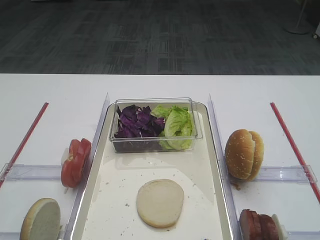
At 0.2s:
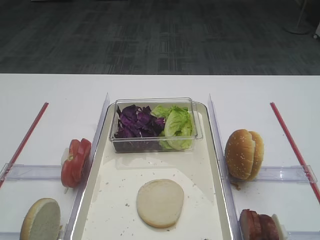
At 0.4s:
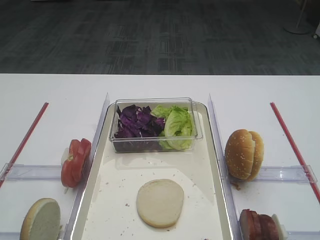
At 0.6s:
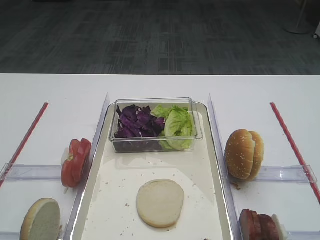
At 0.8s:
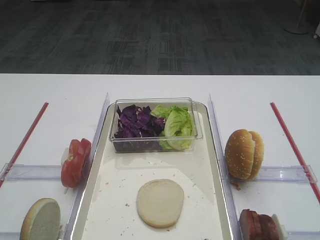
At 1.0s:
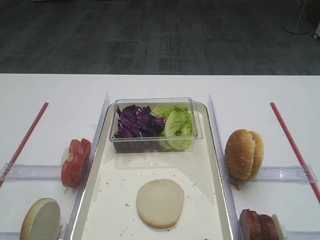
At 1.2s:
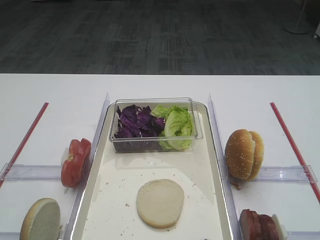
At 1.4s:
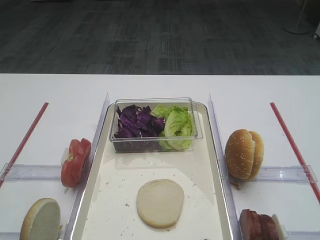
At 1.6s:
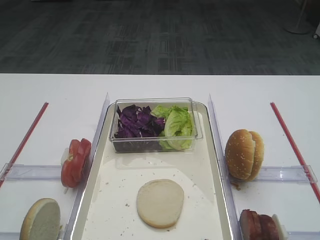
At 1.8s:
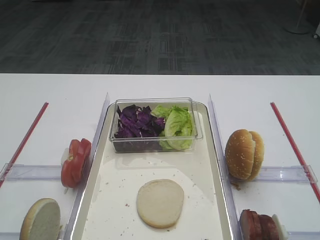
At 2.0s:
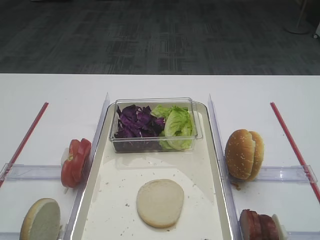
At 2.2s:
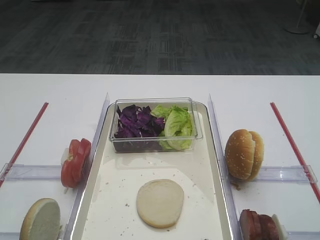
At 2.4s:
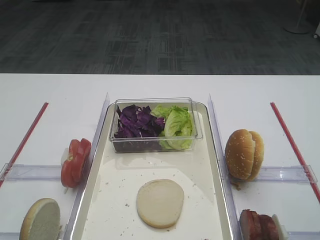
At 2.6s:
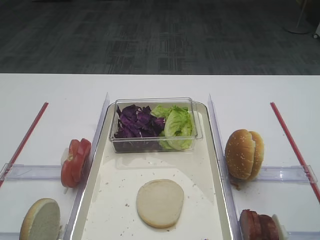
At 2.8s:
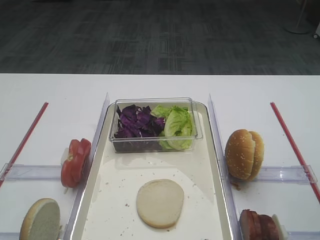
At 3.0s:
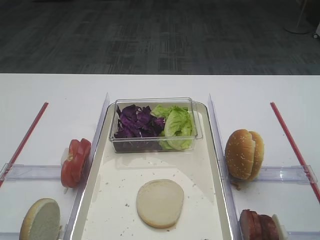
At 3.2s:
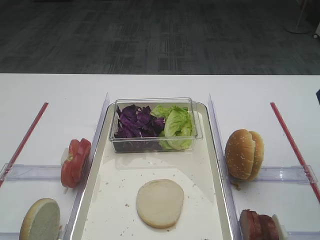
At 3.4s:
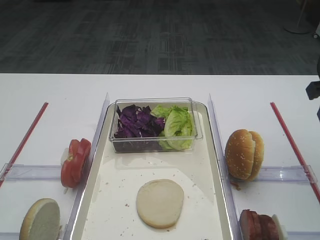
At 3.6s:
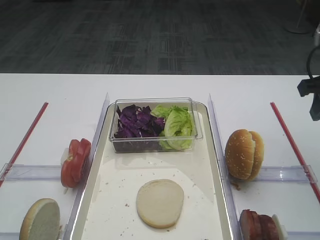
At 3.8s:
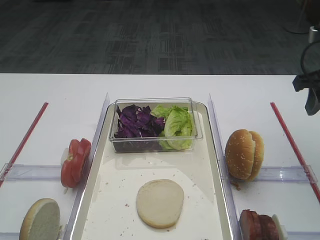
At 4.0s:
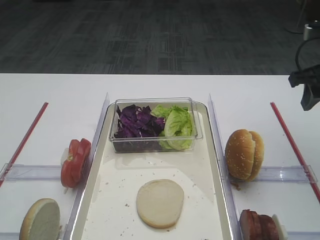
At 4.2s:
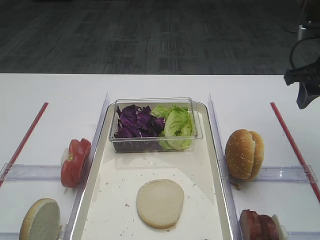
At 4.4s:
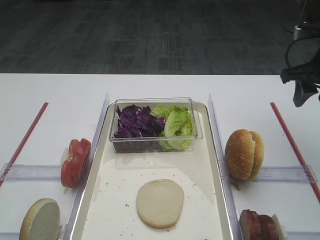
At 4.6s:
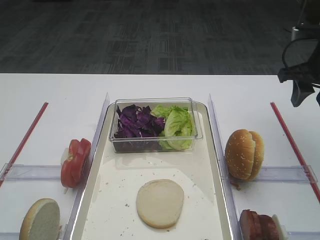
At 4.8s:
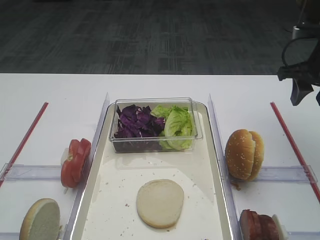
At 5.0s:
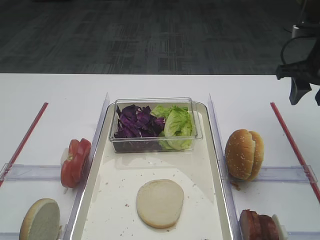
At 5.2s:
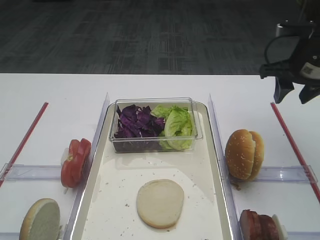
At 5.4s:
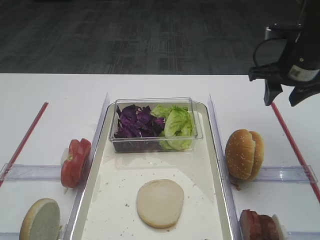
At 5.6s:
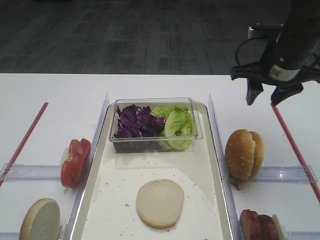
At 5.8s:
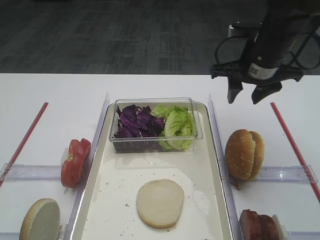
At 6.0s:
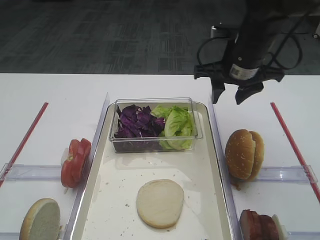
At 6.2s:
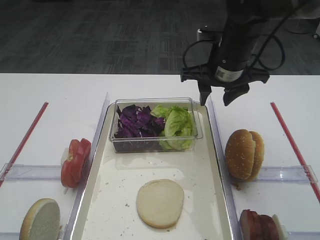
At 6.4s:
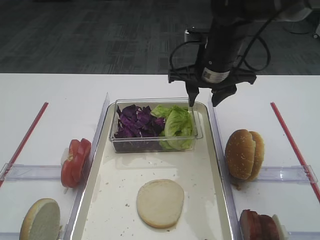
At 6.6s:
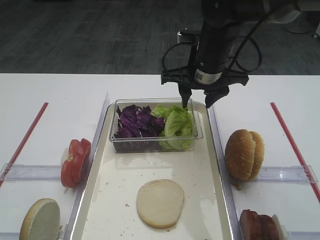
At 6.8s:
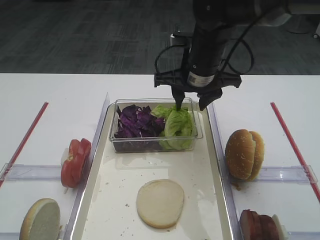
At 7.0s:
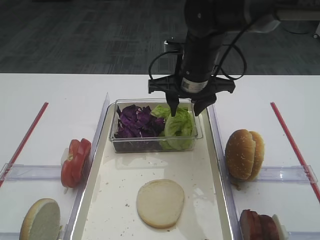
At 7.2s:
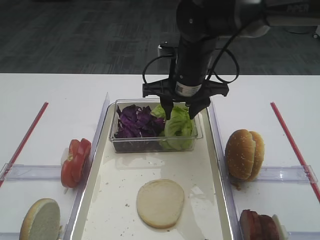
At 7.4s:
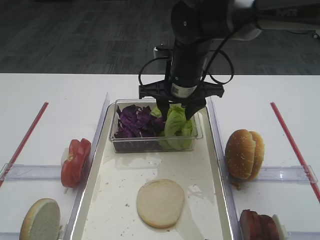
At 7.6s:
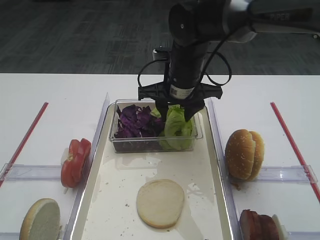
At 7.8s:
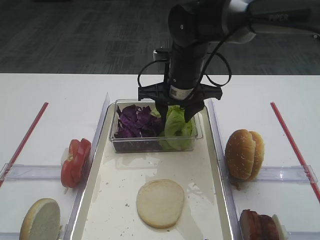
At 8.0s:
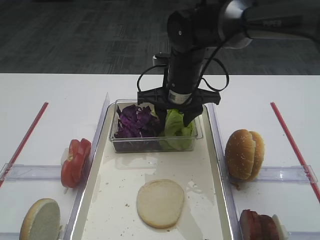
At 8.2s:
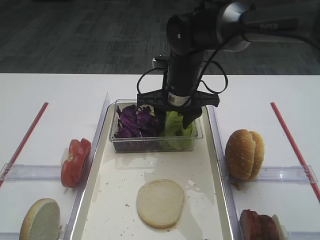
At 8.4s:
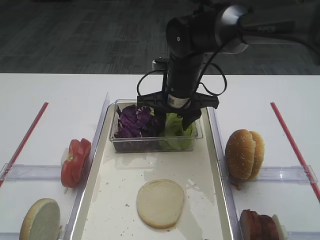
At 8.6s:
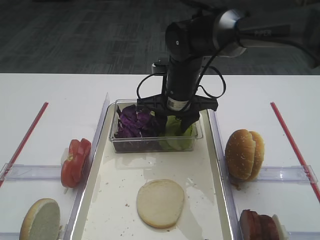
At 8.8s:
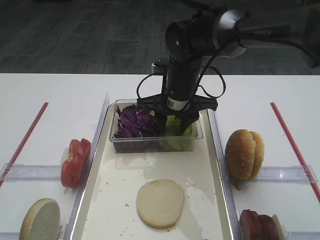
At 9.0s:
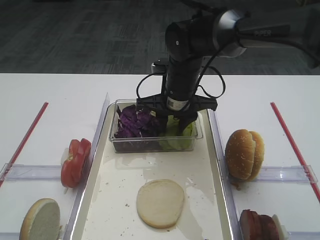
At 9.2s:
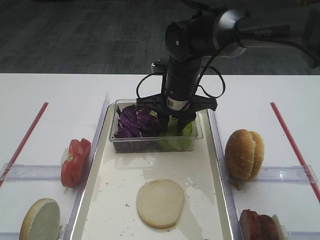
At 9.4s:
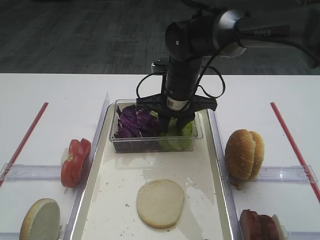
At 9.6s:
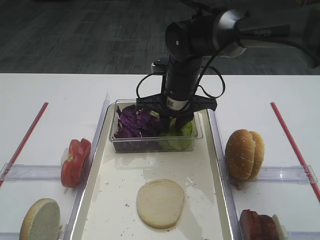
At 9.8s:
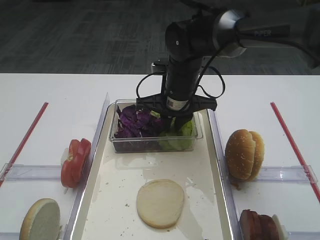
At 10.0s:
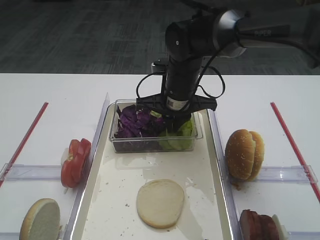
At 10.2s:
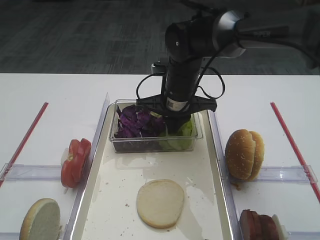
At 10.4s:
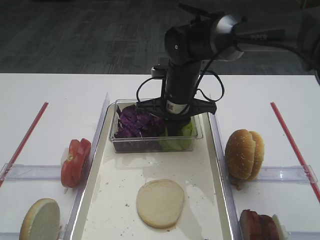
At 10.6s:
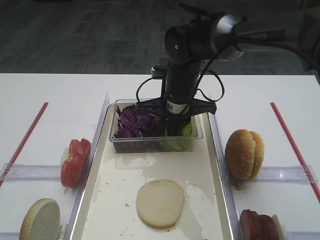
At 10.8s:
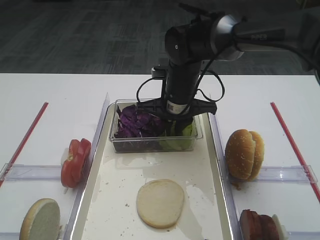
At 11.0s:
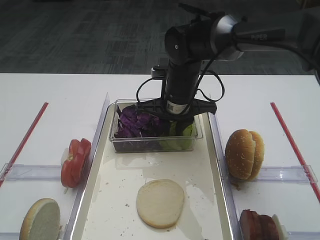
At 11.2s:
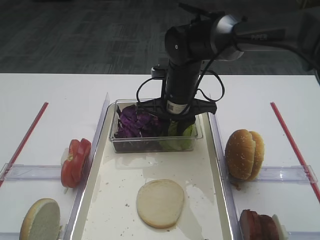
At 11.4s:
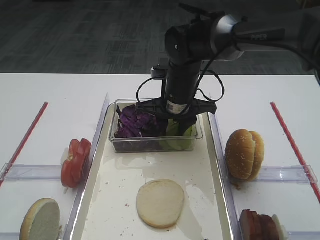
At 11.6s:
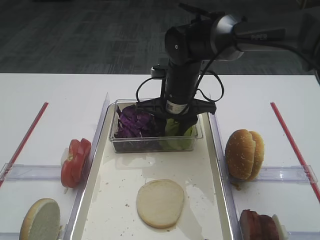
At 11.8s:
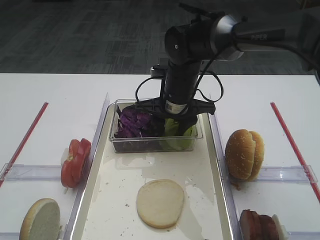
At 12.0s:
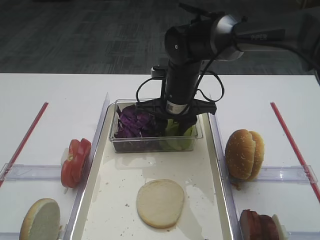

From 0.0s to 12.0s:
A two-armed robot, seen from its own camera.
From 1.6s to 3.0s: The right gripper shifts about 20 cm forward.
From 3.0s to 4.4s: The right gripper shifts roughly 15 cm forward.
From 4.4s to 6.0s: The right gripper travels to the left by roughly 15 cm.
From 6.0s to 7.6s: The right gripper shifts approximately 10 cm to the left.
From 7.6s to 9.0s: There are only small adjustments of the grippers.
From 9.0s to 10.4s: The right gripper closes.

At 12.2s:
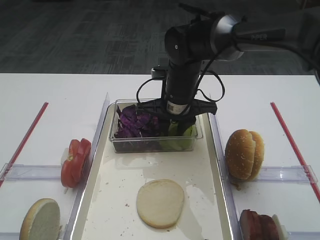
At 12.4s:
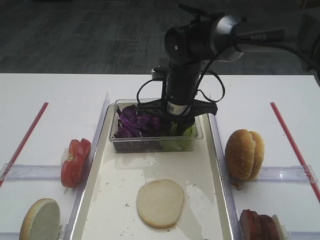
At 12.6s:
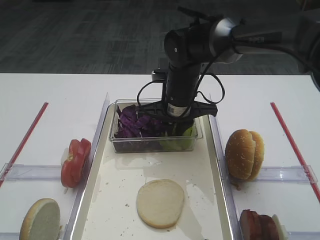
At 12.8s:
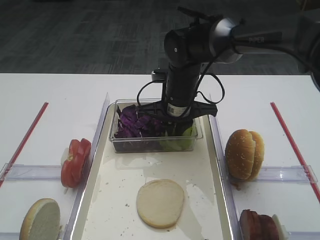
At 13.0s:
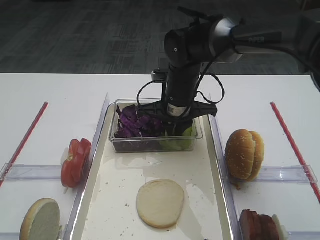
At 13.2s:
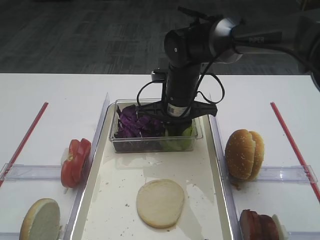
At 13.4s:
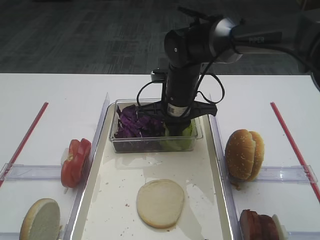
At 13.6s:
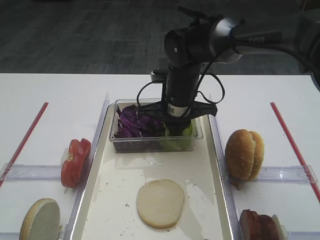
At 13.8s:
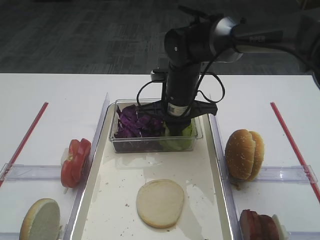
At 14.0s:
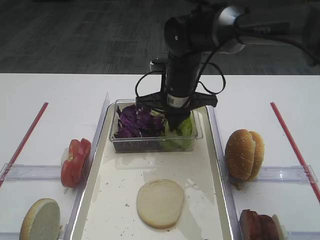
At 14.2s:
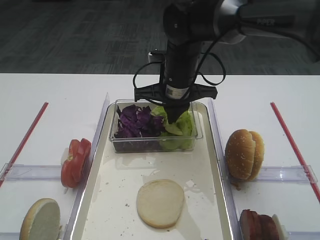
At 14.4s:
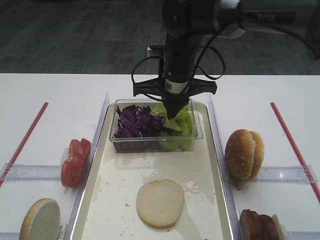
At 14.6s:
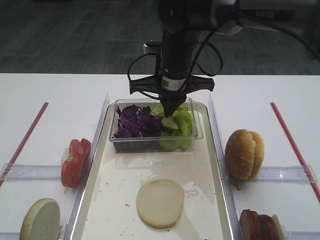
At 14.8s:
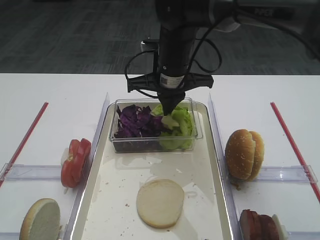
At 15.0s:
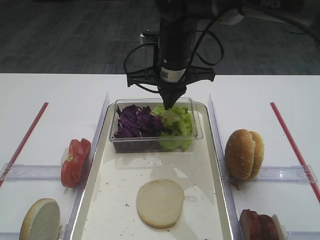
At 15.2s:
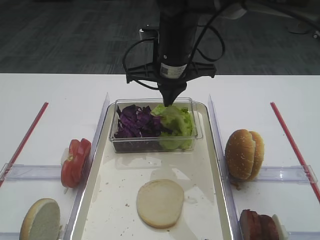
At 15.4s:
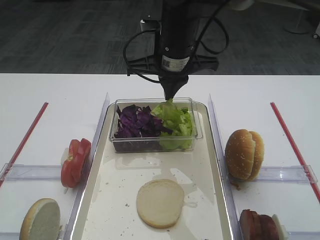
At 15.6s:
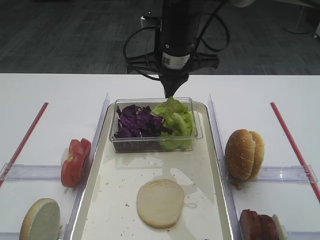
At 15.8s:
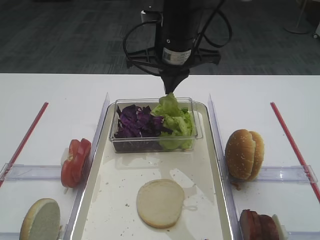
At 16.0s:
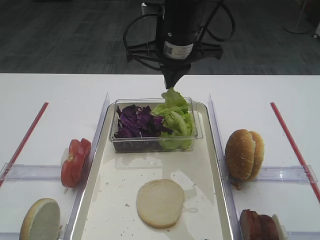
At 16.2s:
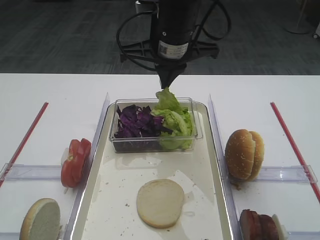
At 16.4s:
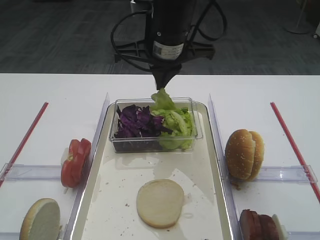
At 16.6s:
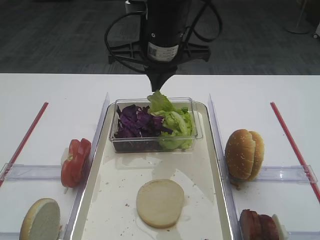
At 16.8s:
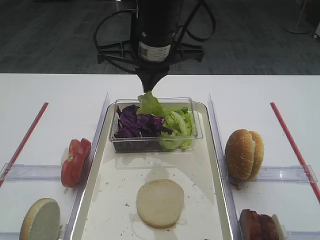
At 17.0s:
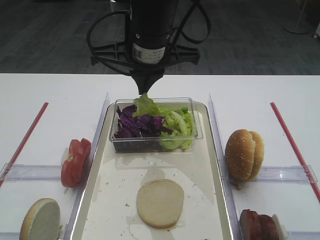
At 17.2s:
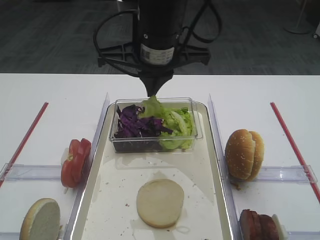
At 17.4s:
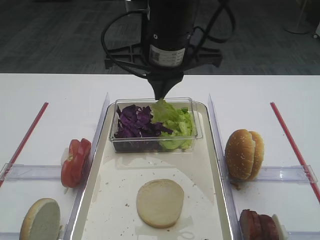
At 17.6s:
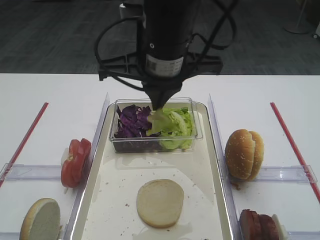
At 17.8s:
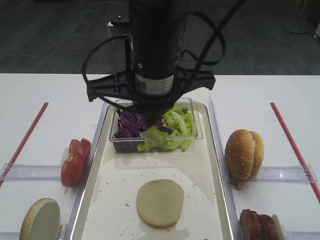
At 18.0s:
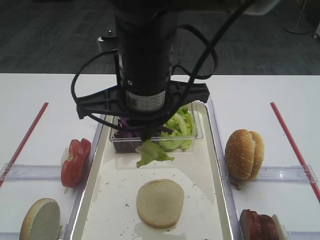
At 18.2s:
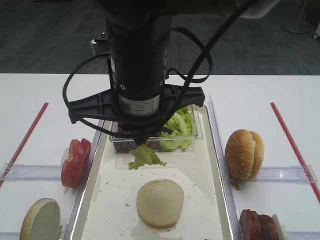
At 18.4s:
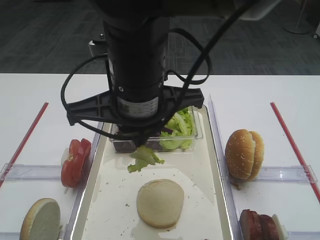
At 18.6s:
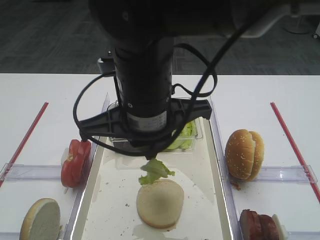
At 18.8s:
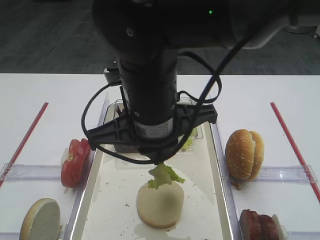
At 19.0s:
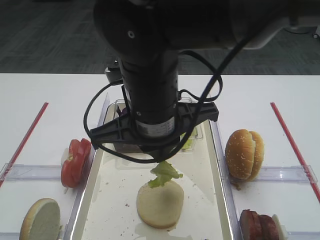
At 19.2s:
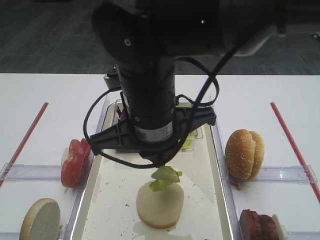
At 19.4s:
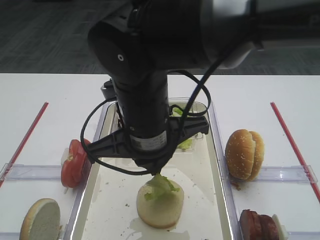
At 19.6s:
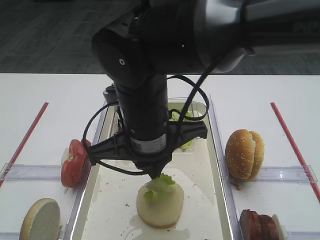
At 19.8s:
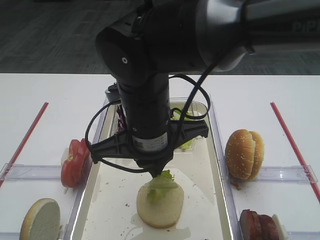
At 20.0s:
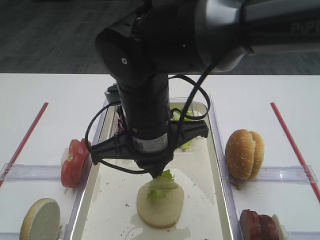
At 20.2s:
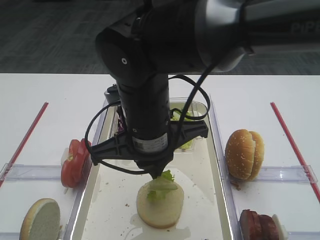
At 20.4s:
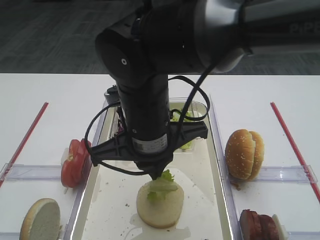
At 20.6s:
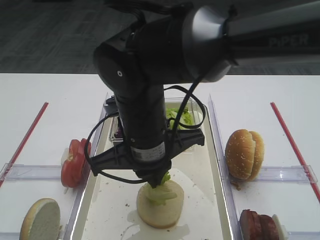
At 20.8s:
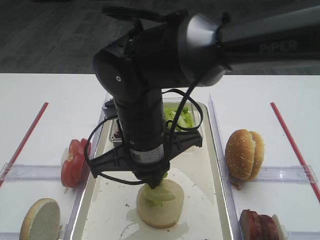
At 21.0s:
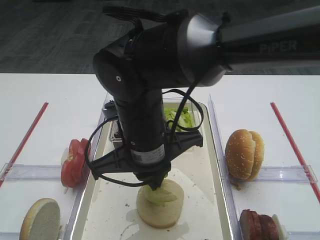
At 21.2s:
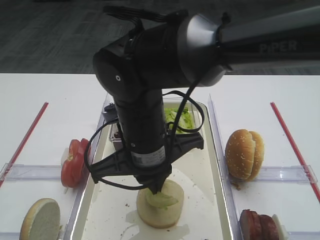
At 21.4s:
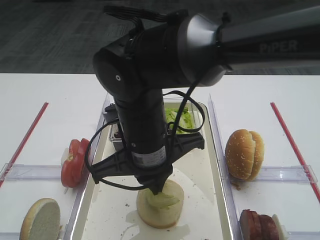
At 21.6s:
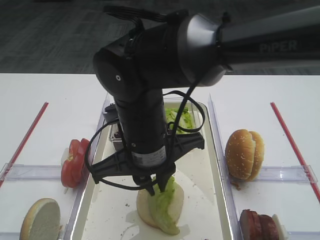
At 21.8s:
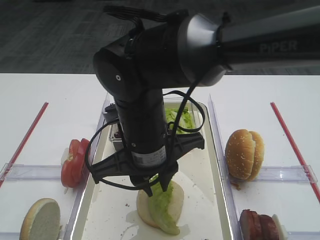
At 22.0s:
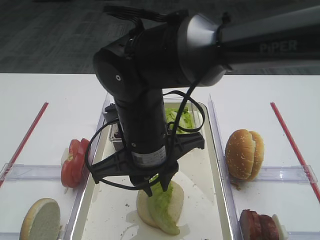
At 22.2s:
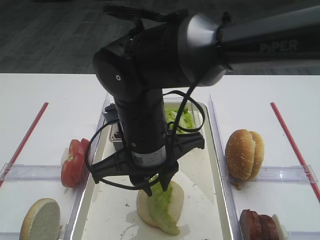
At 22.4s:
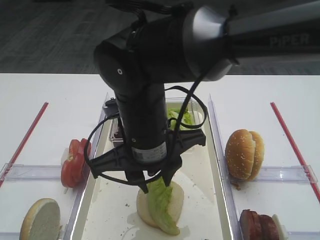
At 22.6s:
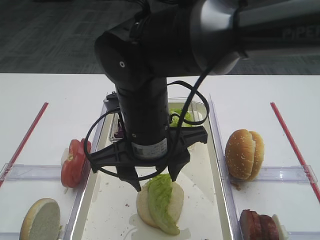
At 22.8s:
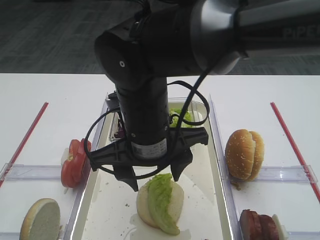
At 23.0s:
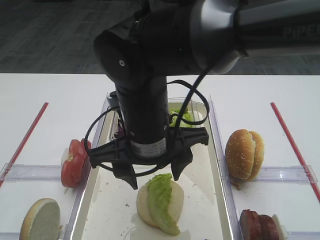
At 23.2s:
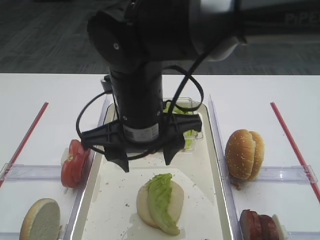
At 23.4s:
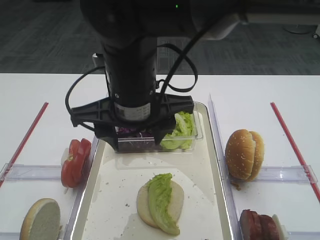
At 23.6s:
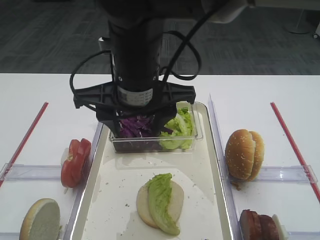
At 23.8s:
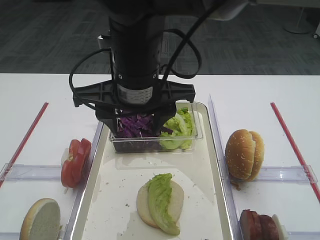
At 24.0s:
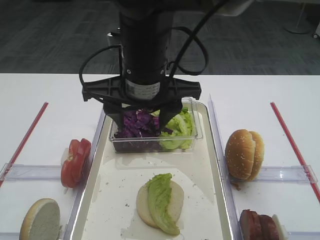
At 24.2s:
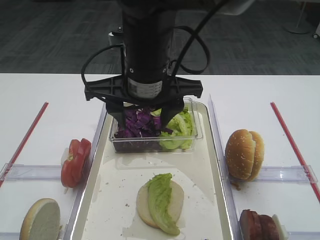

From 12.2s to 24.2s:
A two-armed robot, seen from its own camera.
Step, from 12.2s to 17.0s: Pick up the lettuce leaf with the right gripper.
Step, from 17.2s to 24.2s: Place the lettuce leaf on the bread slice with the right gripper.
From 12.2s to 13.8s: The right gripper closes its fingers.
From 13.8s to 15.2s: The right gripper shifts approximately 10 cm upward.
From 15.2s to 16.6s: The right gripper shifts about 5 cm upward.
From 16.6s to 18.2s: The right gripper shifts roughly 10 cm backward.
From 18.2s to 19.8s: The right gripper travels downward by approximately 5 cm.
From 19.8s to 21.2s: The grippers make only small movements.
From 21.2s to 22.6s: The right gripper opens its fingers.
From 22.6s to 24.2s: The right gripper is displaced upward by some 5 cm.
